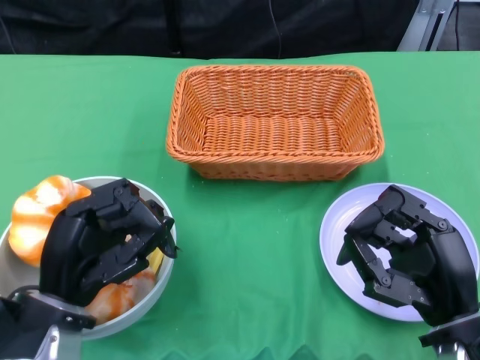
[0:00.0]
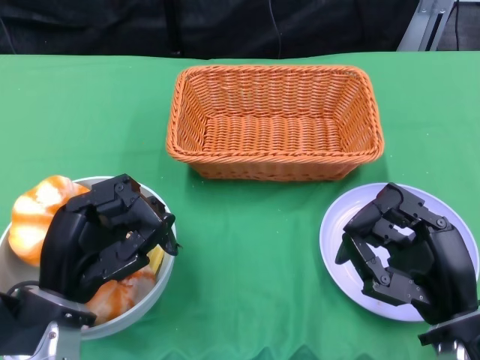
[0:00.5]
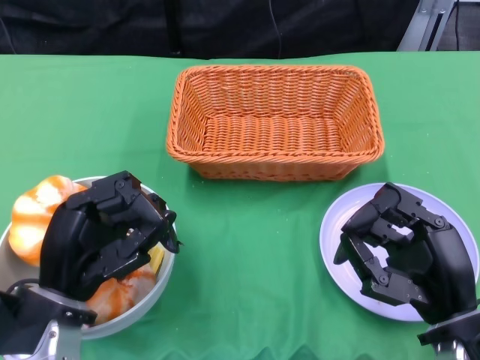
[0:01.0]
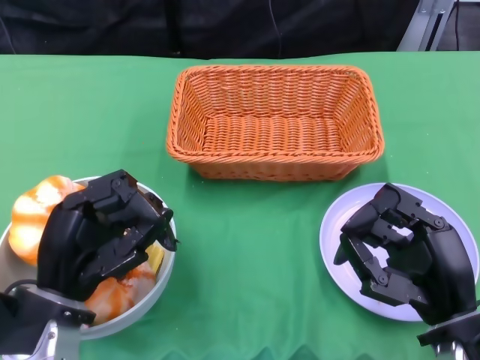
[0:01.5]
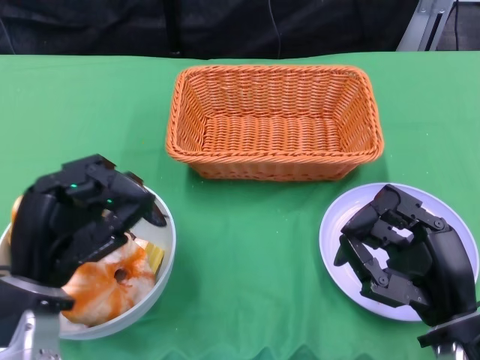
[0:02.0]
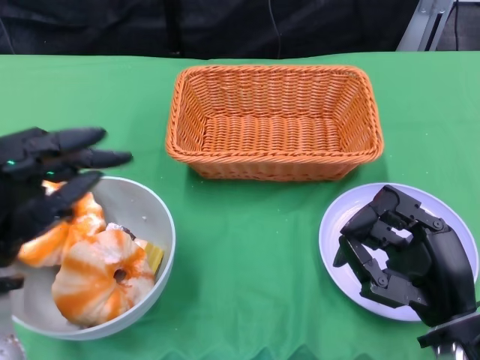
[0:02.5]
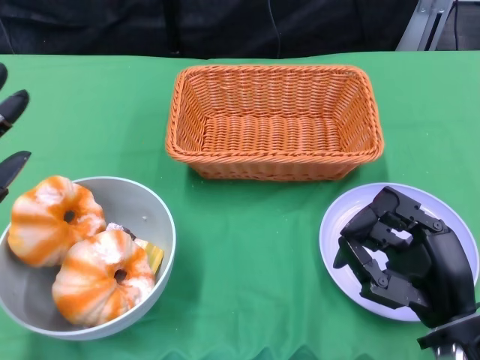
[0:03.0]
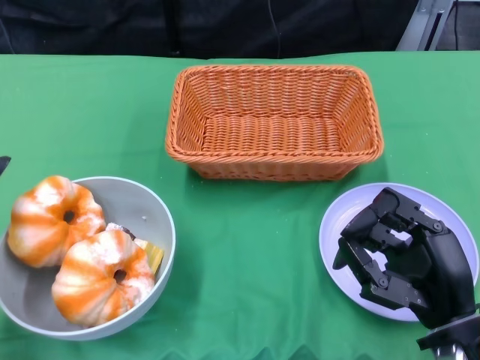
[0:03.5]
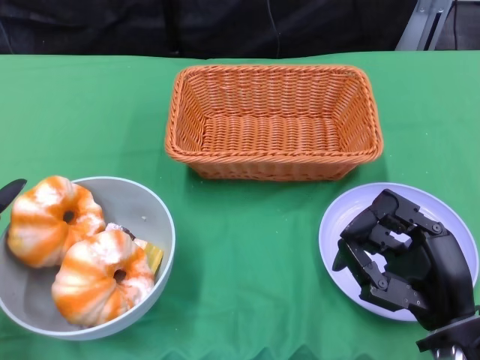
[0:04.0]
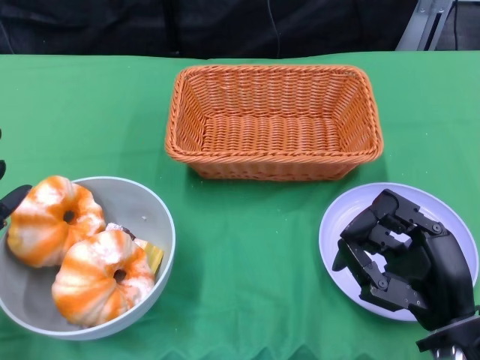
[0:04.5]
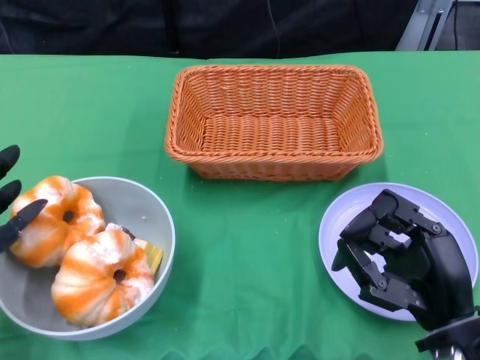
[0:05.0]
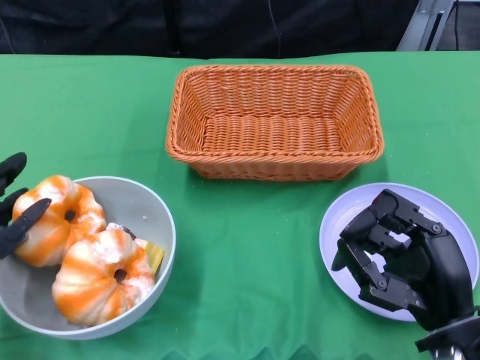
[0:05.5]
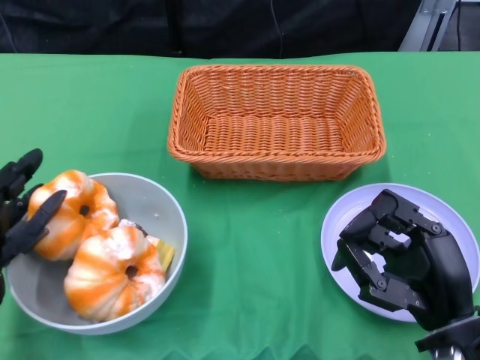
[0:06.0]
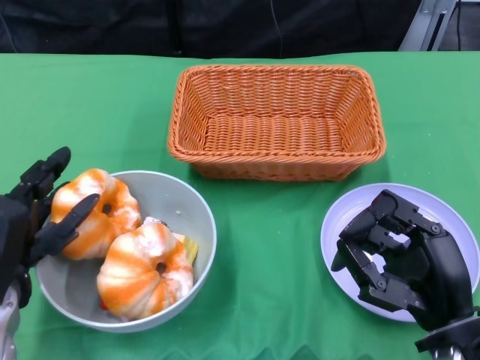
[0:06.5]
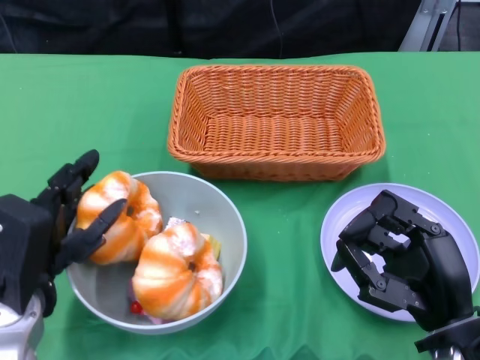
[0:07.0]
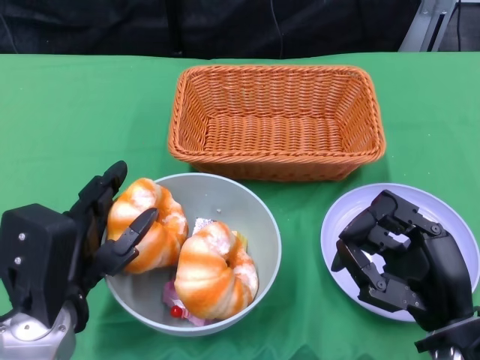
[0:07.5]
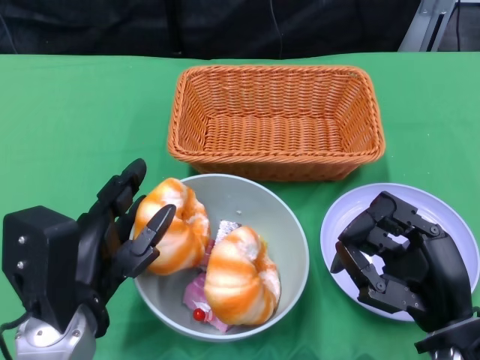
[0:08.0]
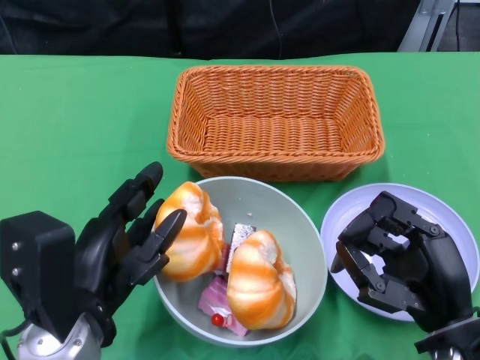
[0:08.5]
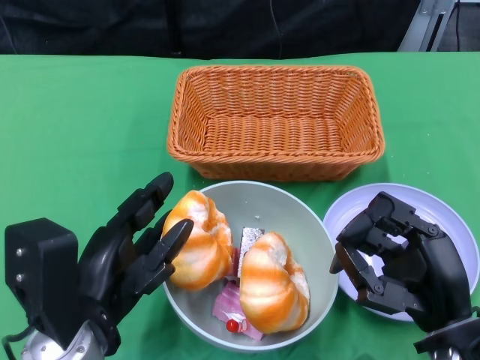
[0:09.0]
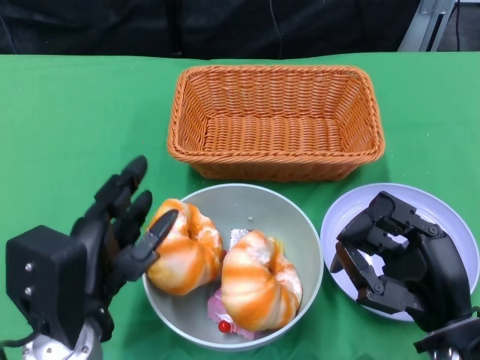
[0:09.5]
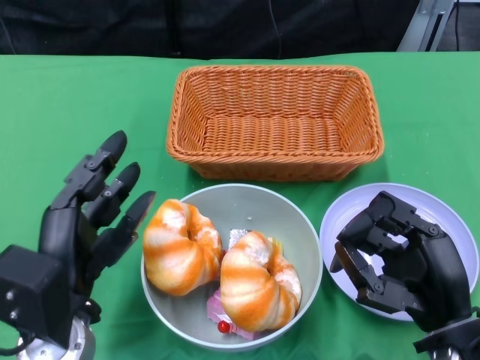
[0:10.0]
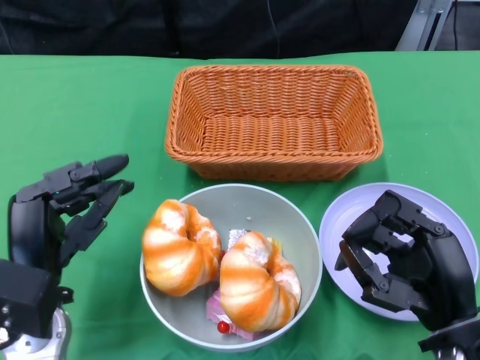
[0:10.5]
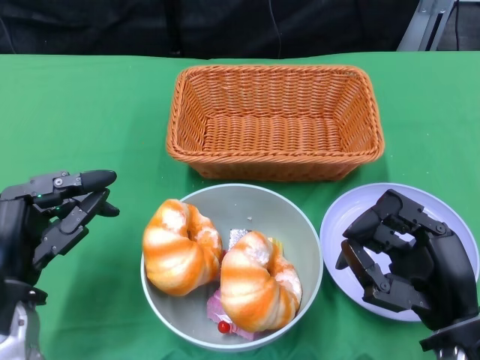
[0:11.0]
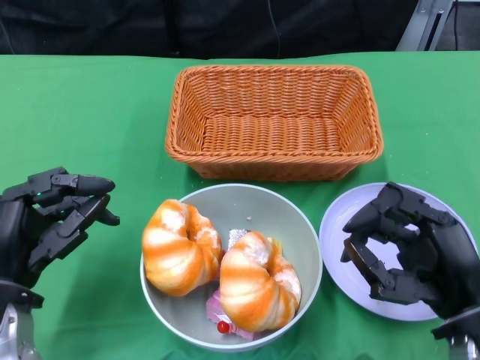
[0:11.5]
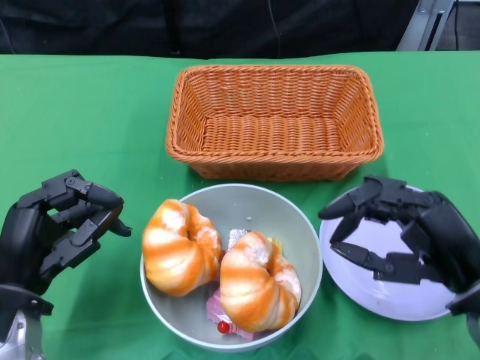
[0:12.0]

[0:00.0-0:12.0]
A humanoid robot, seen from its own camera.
Step, 0:00.0 to 0:10.5: Push the bowl to the center of the table using the left gripper.
0:02.0 to 0:04.0: The left hand is displaced to the left by about 10 cm.
0:04.0 to 0:06.0: The hands stay close to where they were, moving slightly.
0:06.0 to 0:08.0: The left hand travels to the right by about 10 cm.
0:10.0 to 0:12.0: The left hand is displaced to the left by roughly 5 cm.

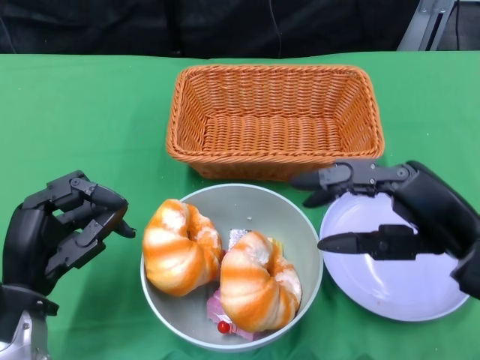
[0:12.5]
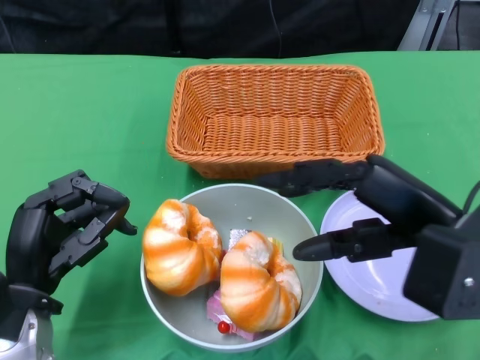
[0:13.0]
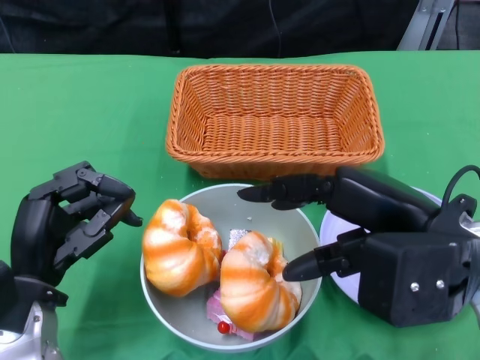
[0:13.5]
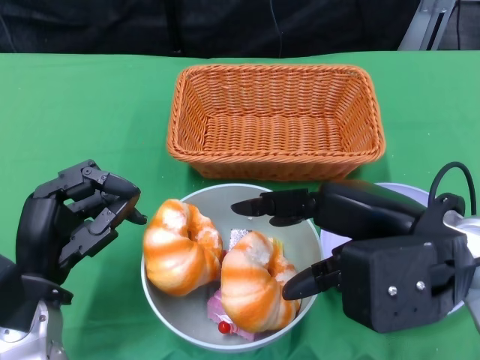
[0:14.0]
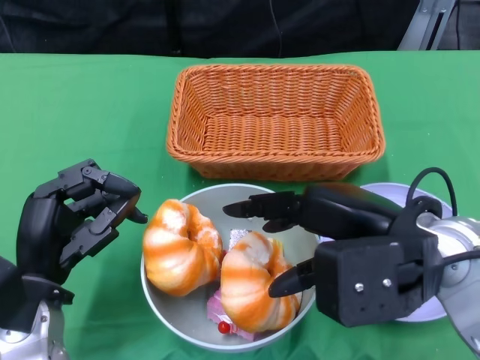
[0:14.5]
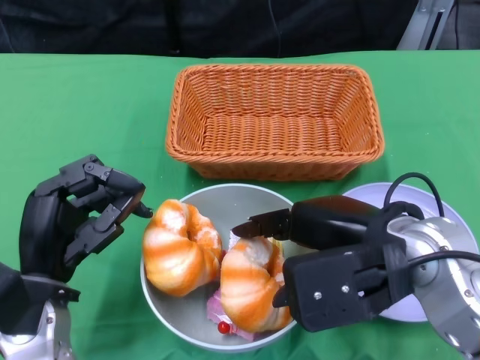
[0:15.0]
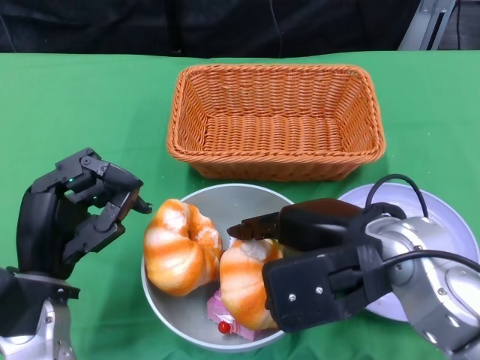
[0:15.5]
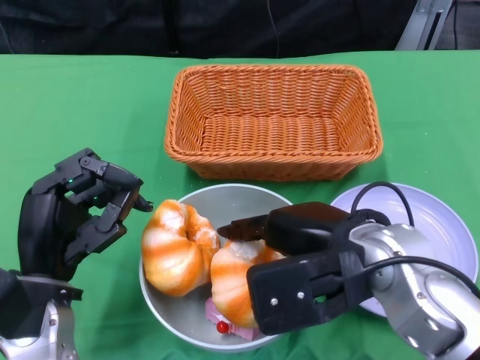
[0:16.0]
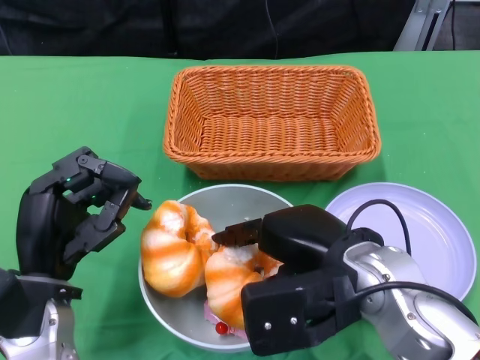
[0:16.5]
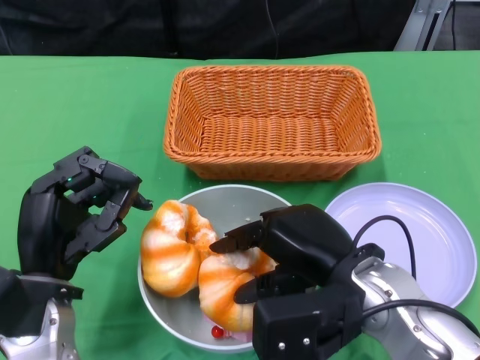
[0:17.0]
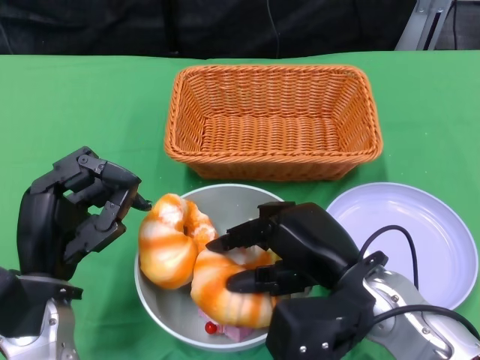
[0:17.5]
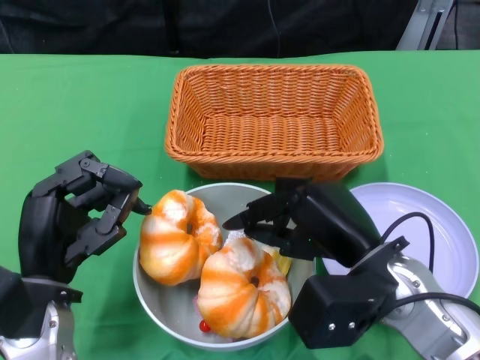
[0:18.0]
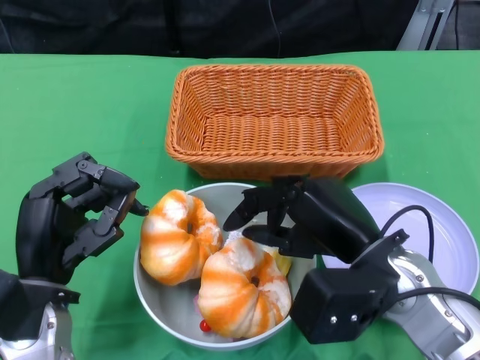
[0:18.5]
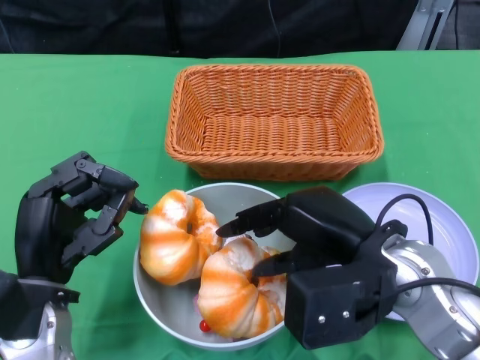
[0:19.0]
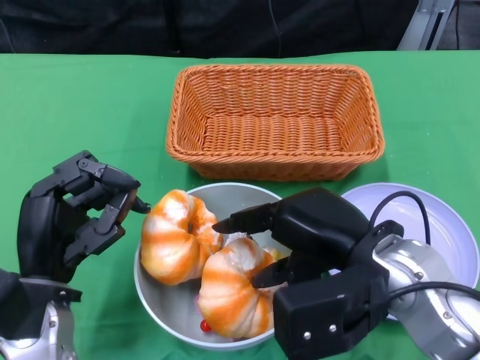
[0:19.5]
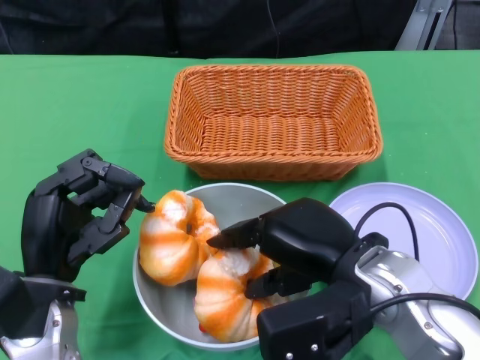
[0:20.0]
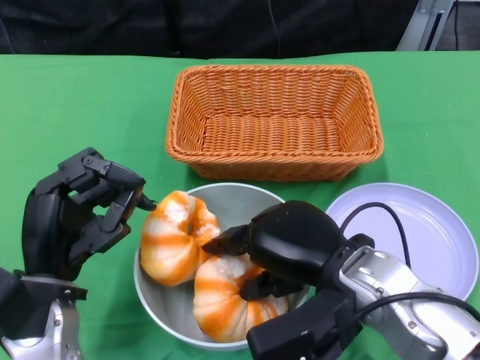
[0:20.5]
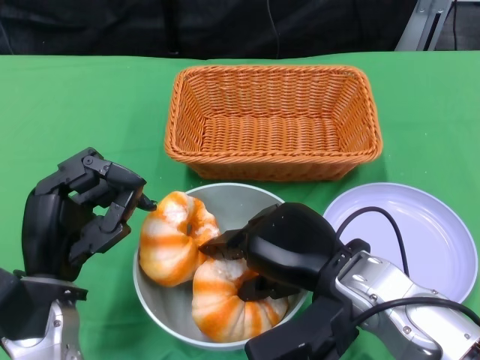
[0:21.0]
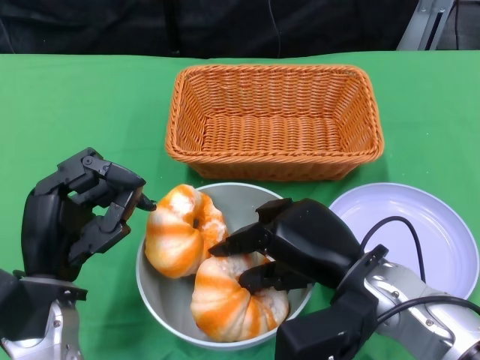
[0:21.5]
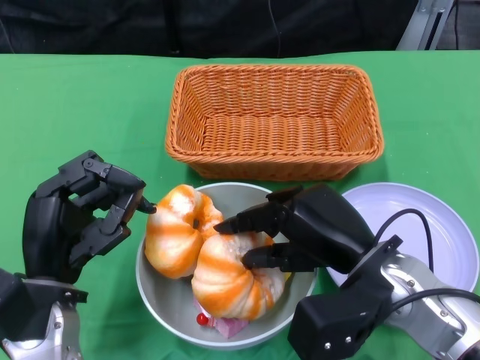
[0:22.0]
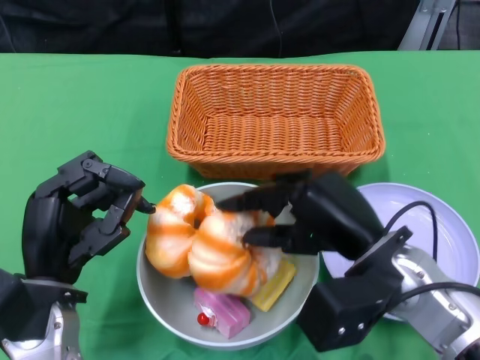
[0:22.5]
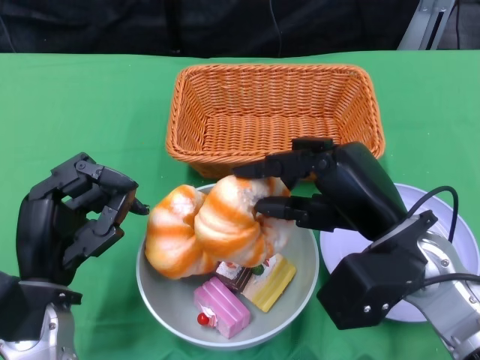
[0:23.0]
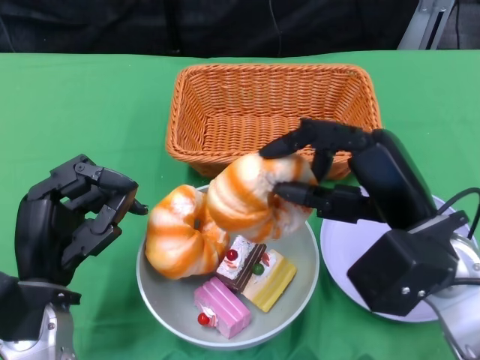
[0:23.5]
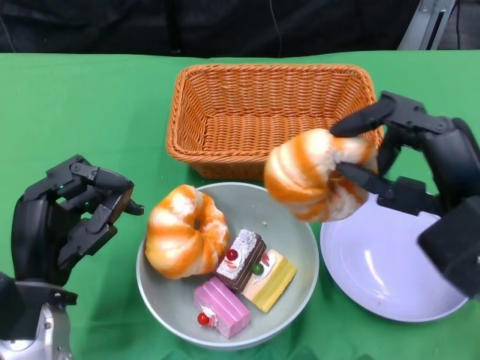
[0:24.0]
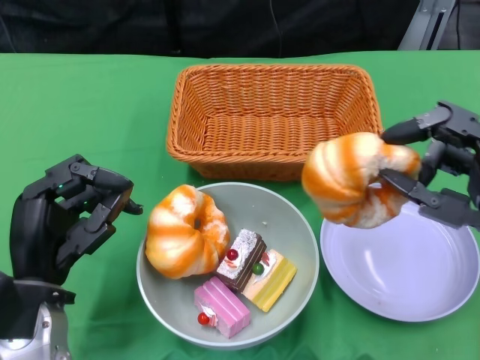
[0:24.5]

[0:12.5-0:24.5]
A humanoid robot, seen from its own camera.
0:12.5 to 0:14.5: The right hand moves to the left, approximately 5 cm.
0:14.5 to 0:16.5: The right hand moves to the left, about 5 cm.
0:22.5 to 0:24.5: The right hand goes about 10 cm to the right.

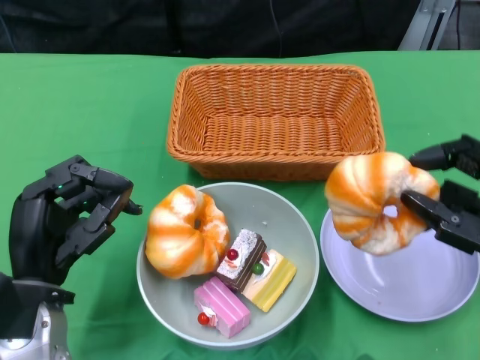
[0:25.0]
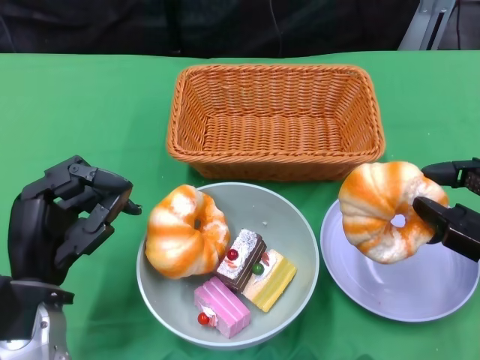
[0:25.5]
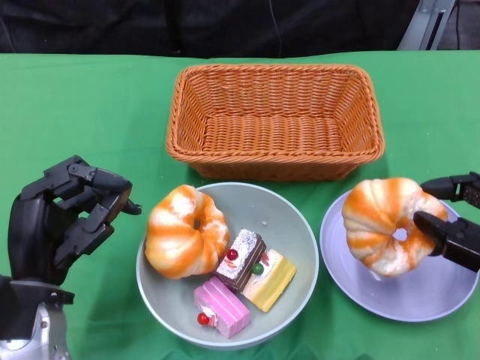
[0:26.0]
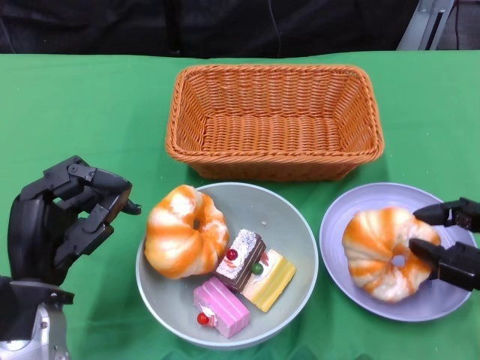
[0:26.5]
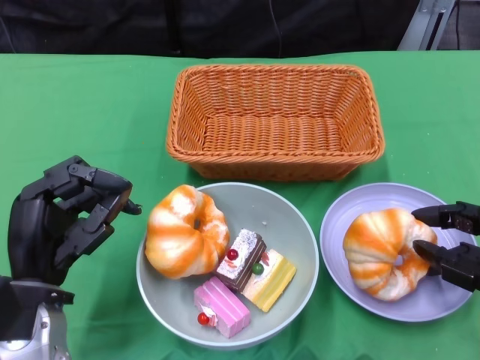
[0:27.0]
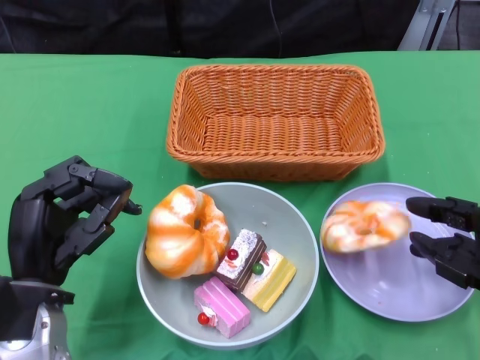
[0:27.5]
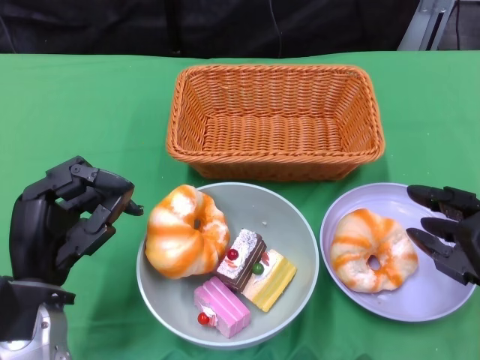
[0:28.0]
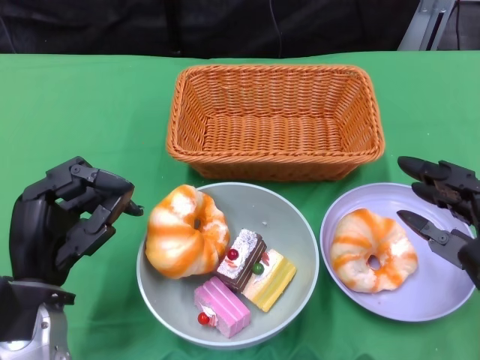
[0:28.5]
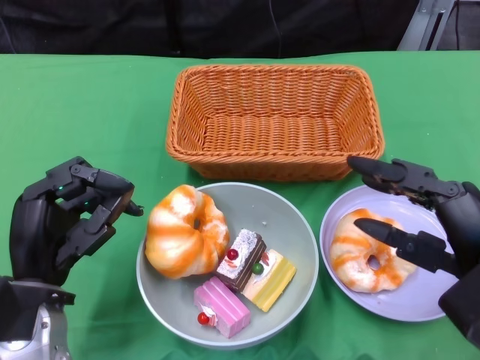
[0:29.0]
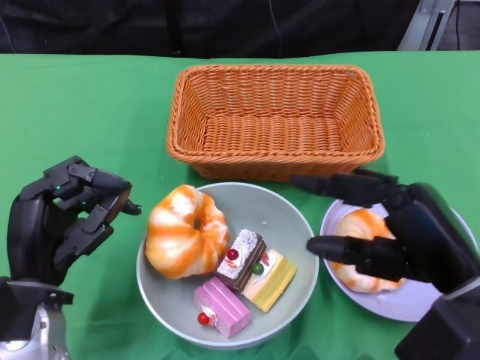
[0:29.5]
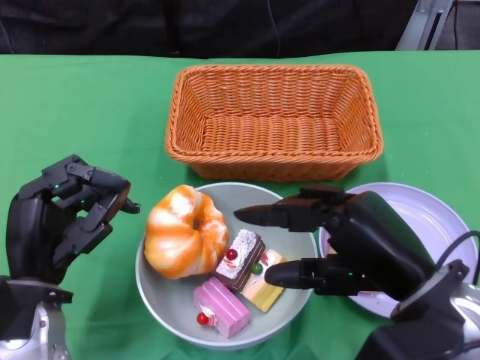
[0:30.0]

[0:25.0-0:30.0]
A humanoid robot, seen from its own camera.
0:27.5 to 0:30.0: The right hand heads to the left, covering some 10 cm.
